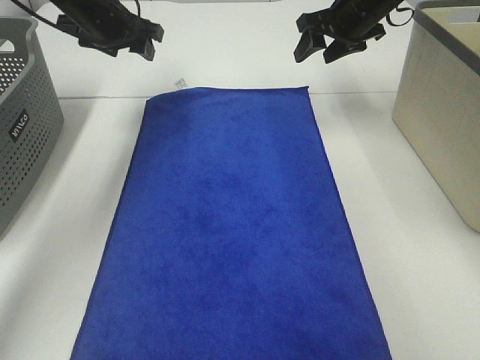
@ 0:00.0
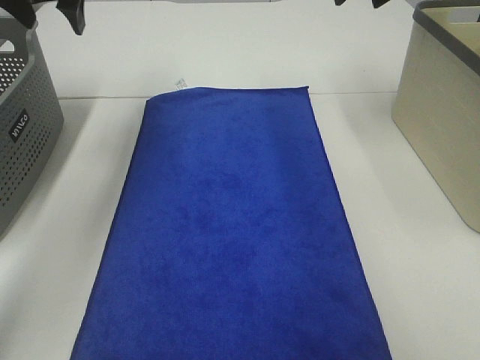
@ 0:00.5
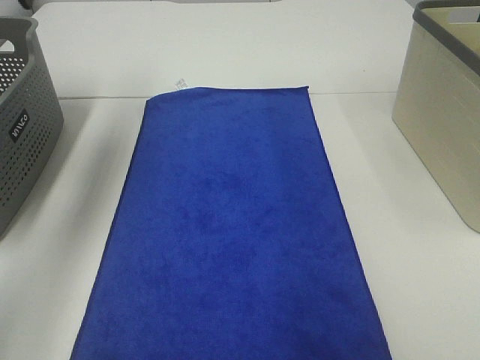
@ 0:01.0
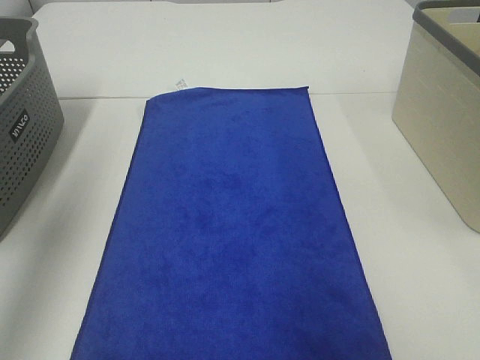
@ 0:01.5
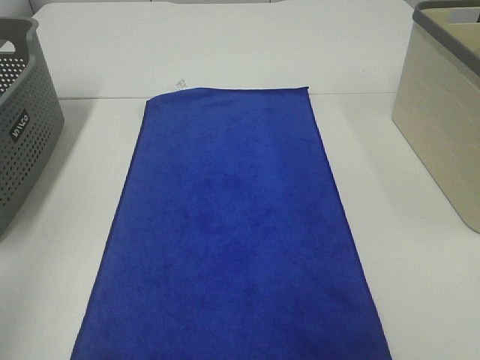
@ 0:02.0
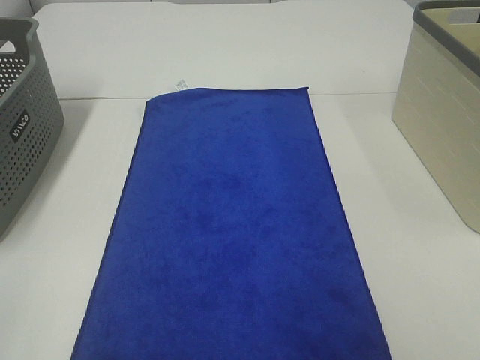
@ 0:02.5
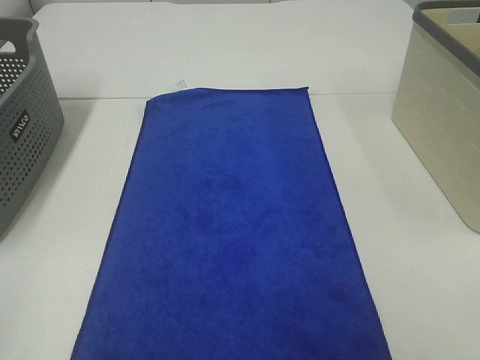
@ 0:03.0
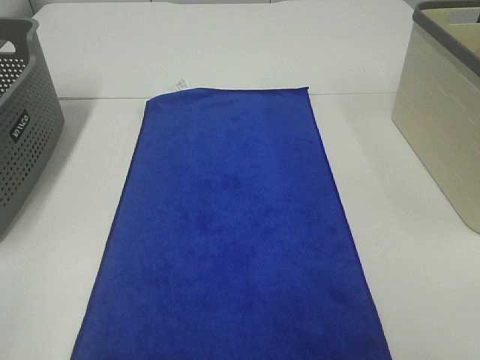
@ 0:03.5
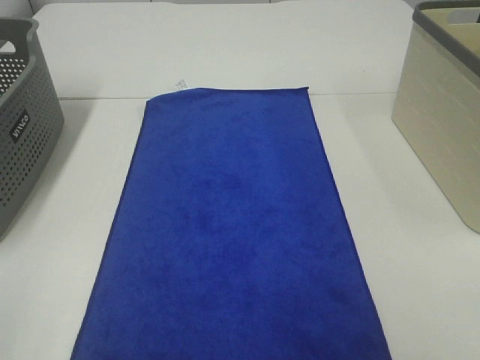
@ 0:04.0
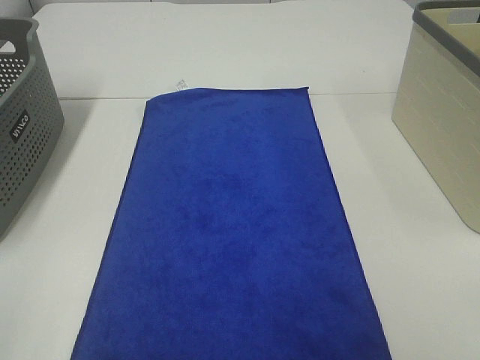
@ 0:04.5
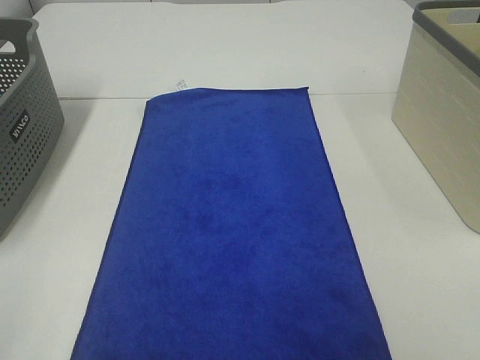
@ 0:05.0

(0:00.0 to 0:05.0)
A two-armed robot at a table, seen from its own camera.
Task of the whole recording: Remove the towel and place it.
0:00.0 - 0:02.5: Both grippers move backward, about 50 cm.

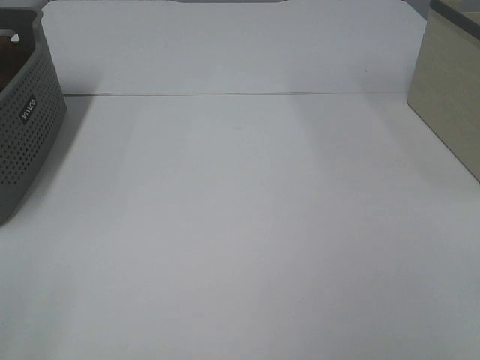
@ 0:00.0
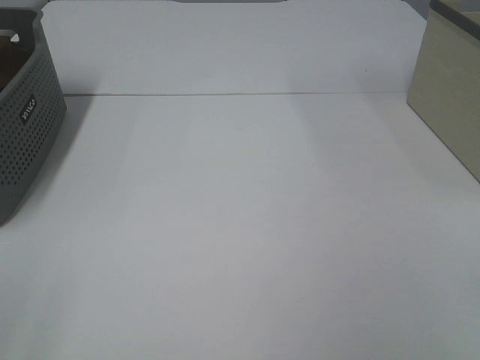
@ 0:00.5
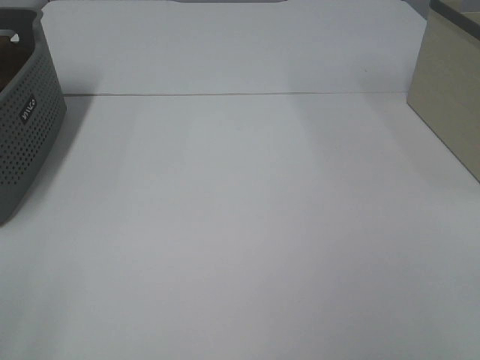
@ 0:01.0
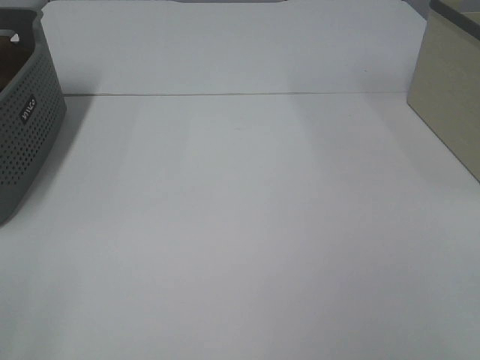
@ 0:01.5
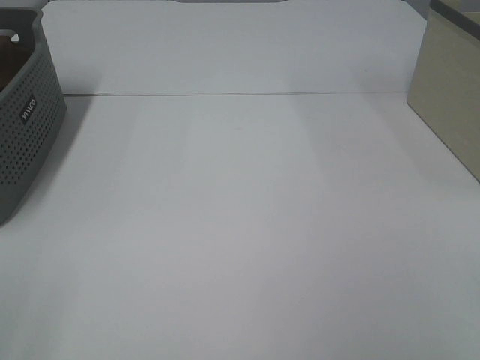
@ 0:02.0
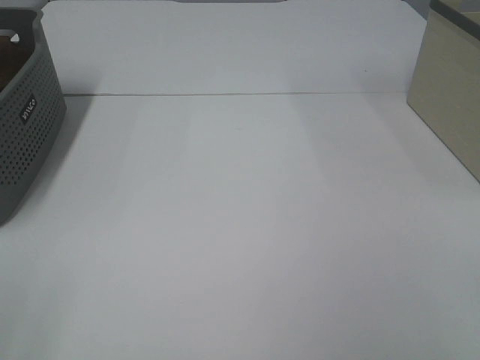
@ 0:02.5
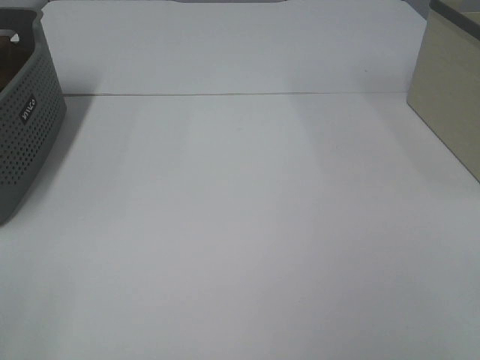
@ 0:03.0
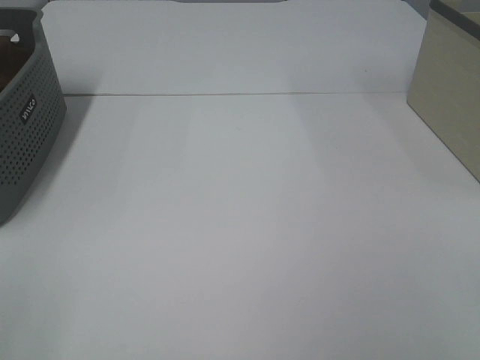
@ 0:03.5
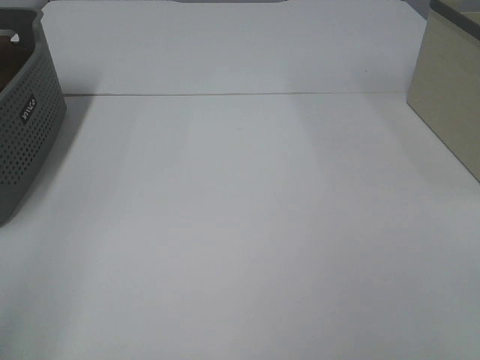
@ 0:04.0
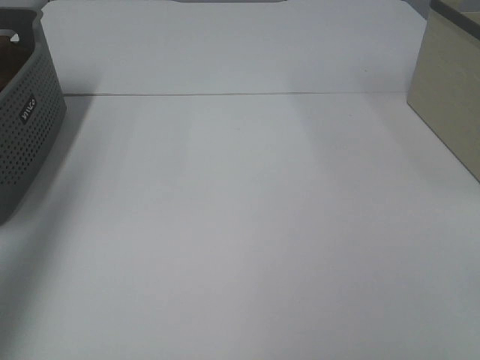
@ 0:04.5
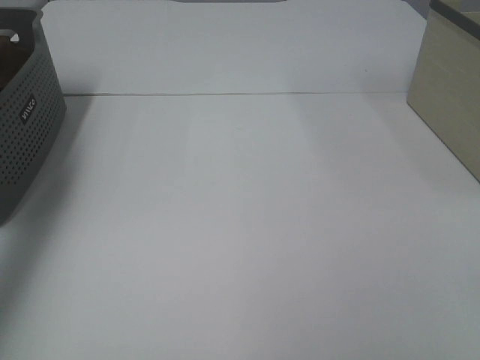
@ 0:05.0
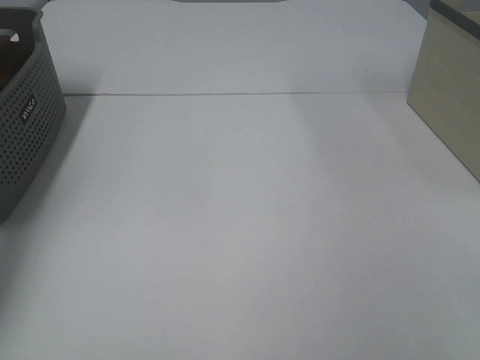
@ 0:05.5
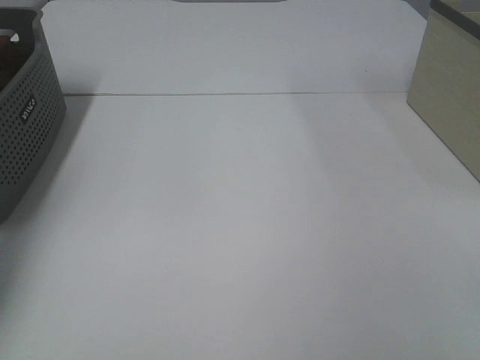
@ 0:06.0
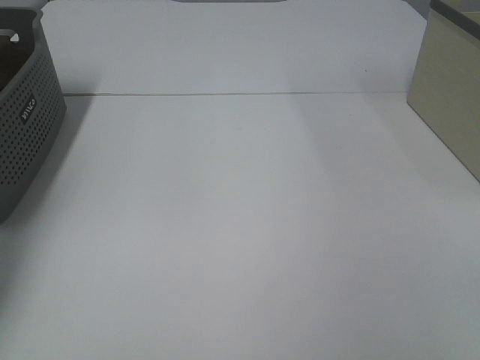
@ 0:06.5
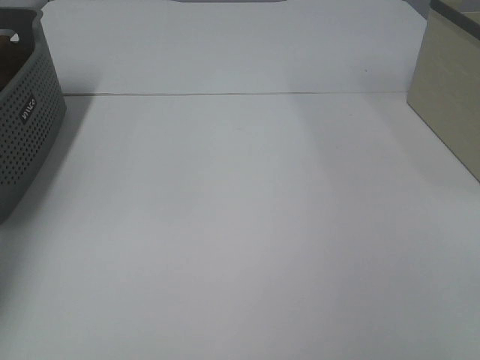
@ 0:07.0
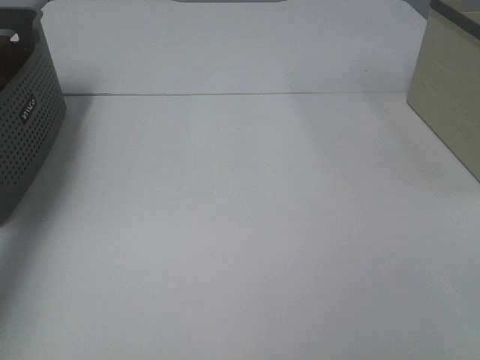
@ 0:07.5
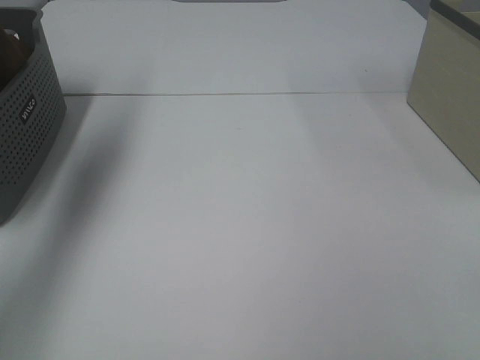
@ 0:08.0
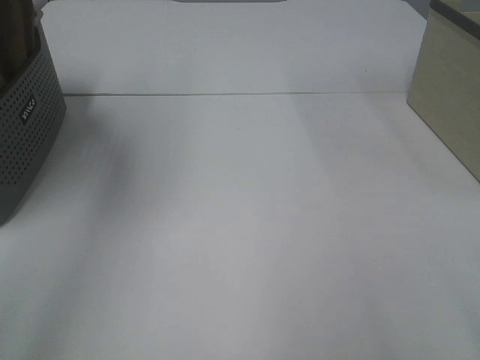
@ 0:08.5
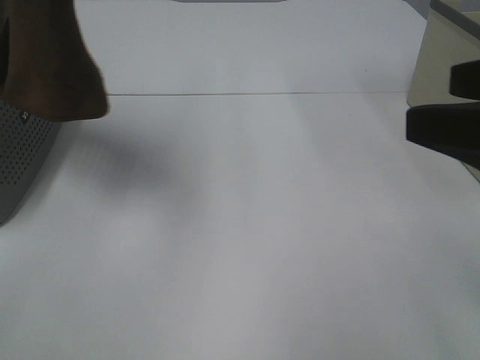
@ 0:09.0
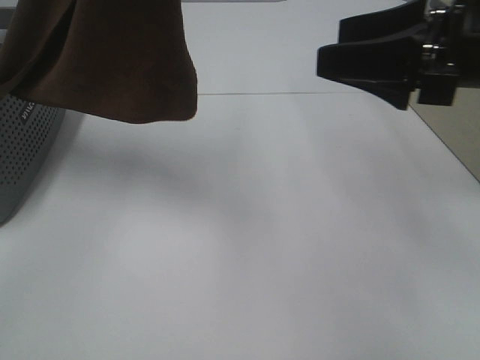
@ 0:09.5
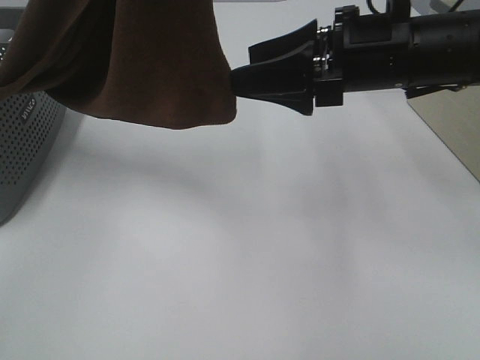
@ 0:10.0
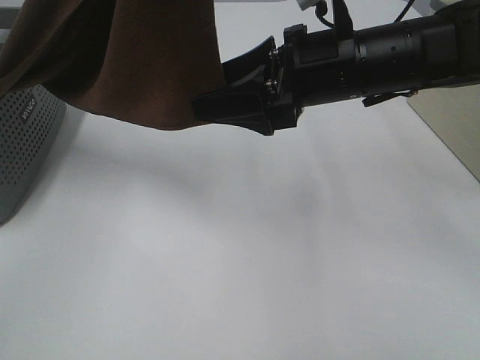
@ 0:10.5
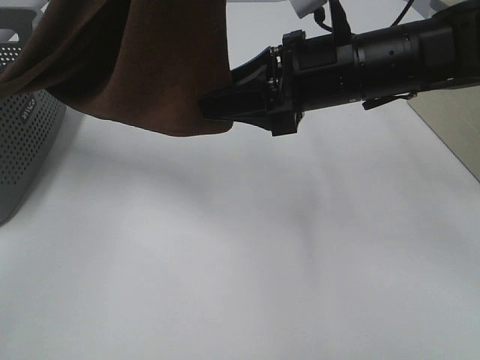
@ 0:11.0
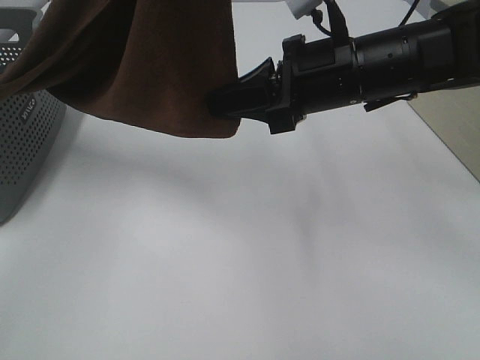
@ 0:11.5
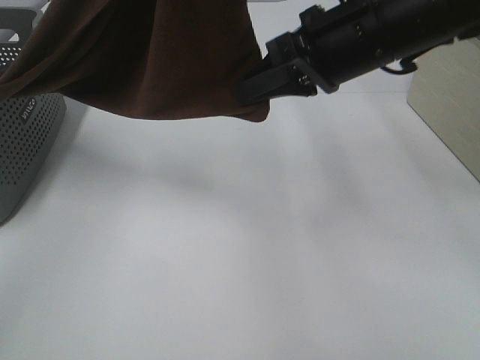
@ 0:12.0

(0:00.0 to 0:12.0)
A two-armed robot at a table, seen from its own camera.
Task of the whole recording: Remove the towel and place it.
0:00.0 - 0:02.0: Both grippers stay about where they are.
0:04.0 - 0:06.0: The left gripper goes about 40 cm forward.
0:06.0 - 0:08.0: The left gripper heads upward and to the right, covering about 20 cm, and closes.
0:08.0 - 0:10.0: The right gripper travels forward and to the left by approximately 35 cm; the left gripper moves to the right, backward and upward, some 30 cm.
0:10.0 - 0:12.0: The right gripper closes up.

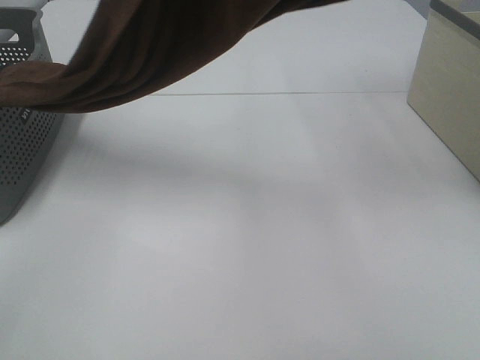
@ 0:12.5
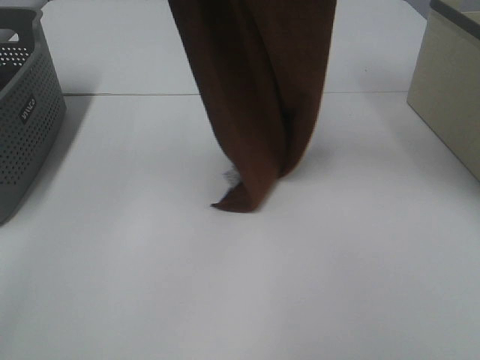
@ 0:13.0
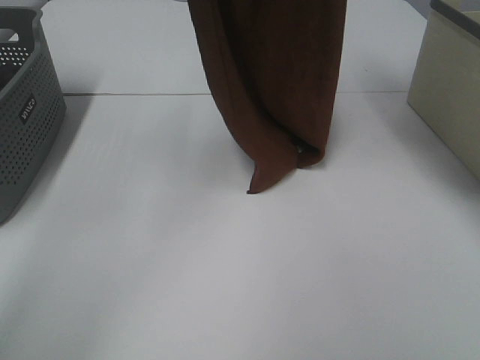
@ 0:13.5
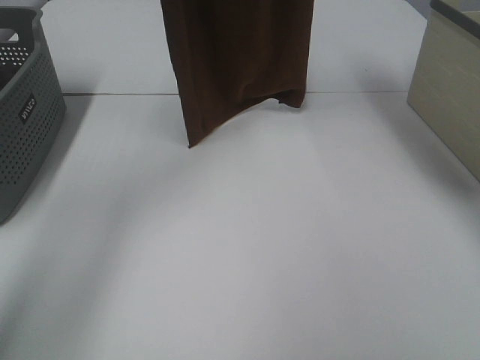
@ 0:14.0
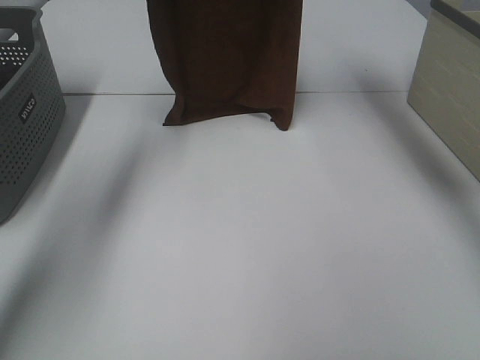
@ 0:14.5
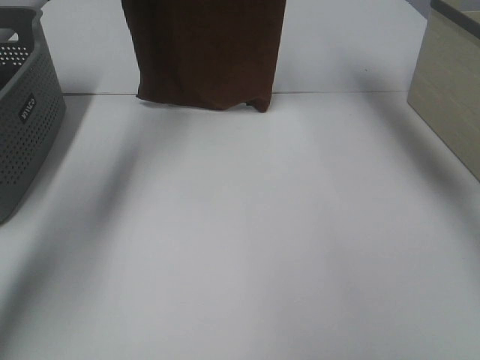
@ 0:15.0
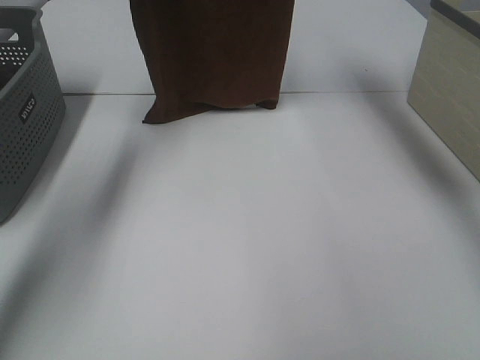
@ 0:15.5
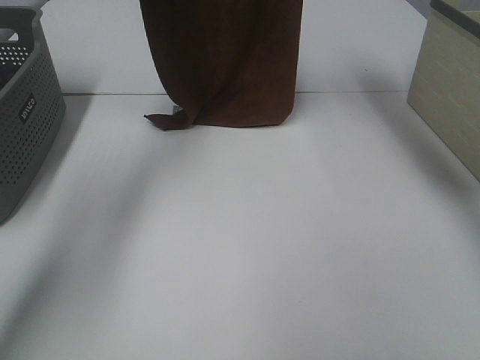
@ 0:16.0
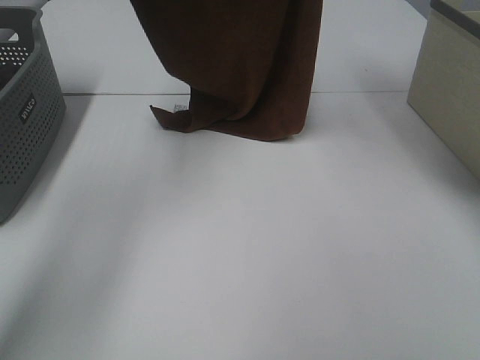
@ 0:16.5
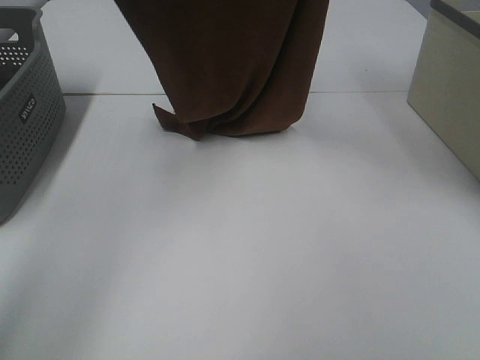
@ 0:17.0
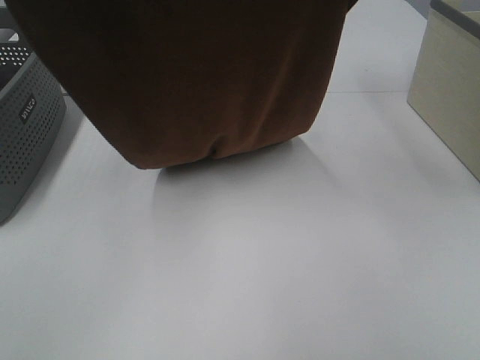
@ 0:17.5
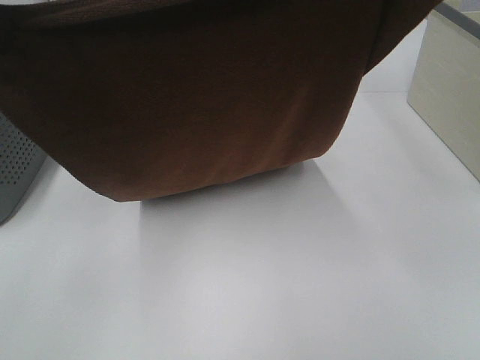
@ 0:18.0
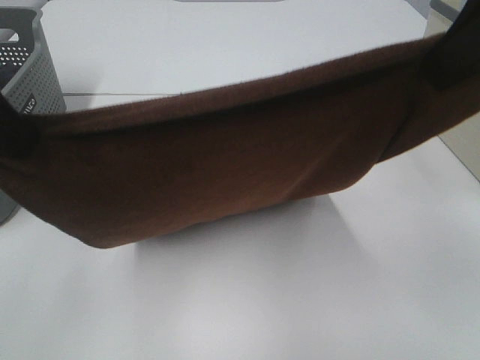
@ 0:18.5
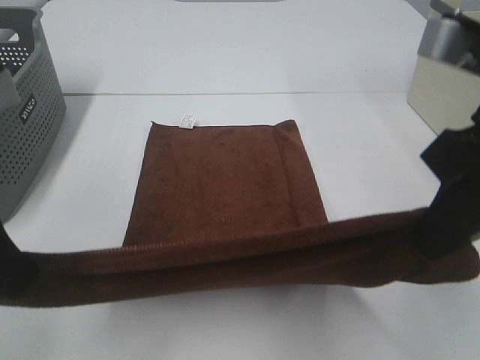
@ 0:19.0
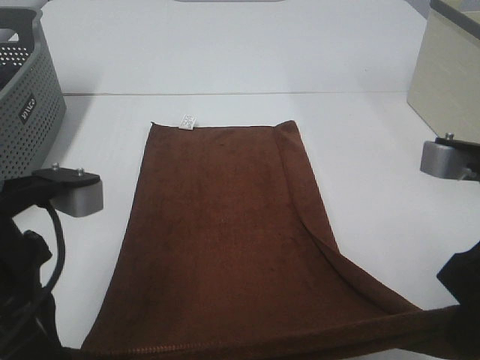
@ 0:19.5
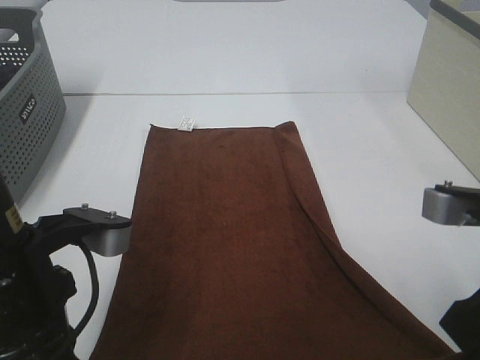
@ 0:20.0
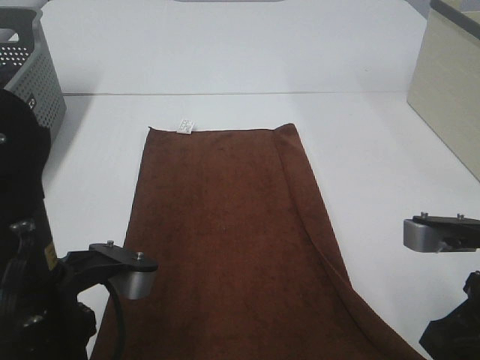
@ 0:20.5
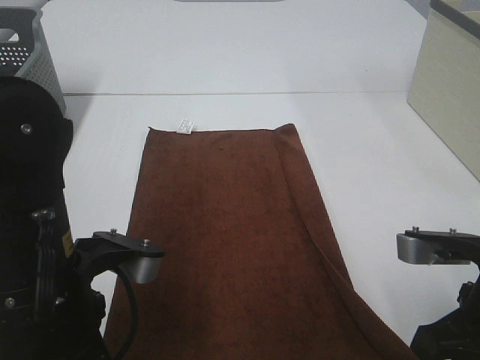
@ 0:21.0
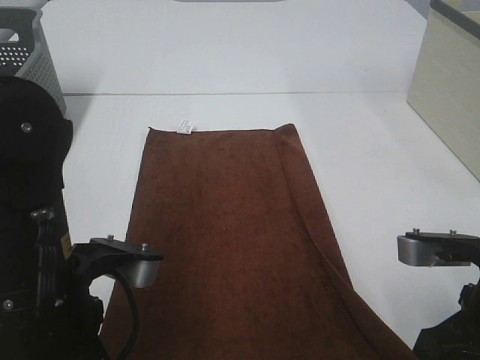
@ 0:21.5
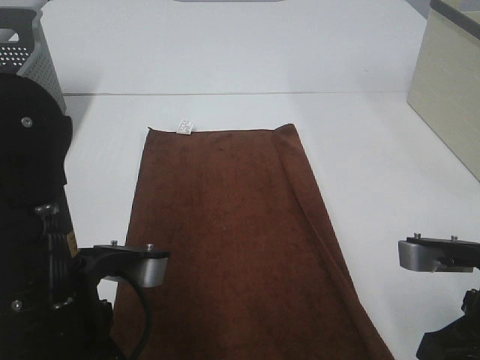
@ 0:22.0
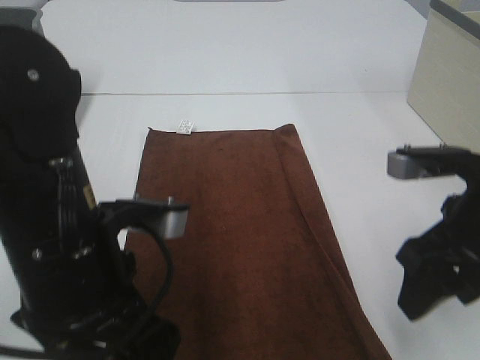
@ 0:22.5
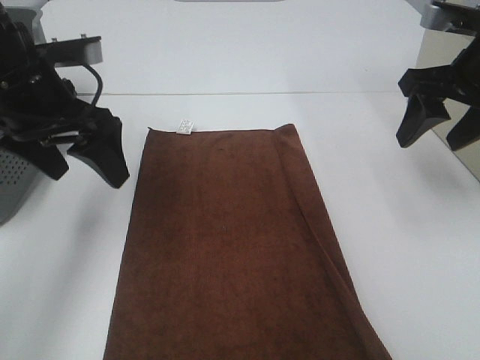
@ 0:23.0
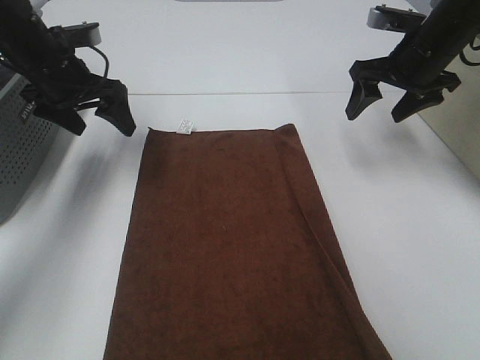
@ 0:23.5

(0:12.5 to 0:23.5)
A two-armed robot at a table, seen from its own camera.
Task of the whole recording: Remove the towel and place it.
Step, 0:12.5 - 0:17.5: Left hand: spread the brown towel flat on the table.
Step, 0:12.5 - 0:17.5: Right hand: spread the brown towel flat on the table.
0:12.5 - 0:14.5: The right gripper goes some 15 cm forward. The left gripper travels forward by approximately 25 cm.
0:16.0 - 0:18.0: Both grippers move backward, approximately 30 cm.
0:18.0 - 0:20.0: The left gripper moves downward, roughly 20 cm; the right gripper travels downward and backward by roughly 25 cm.
0:20.0 - 0:21.5: The right gripper travels downward by approximately 5 cm.
0:21.5 - 0:23.5: Both grippers move forward, roughly 30 cm. The right gripper opens up. The left gripper opens up.
